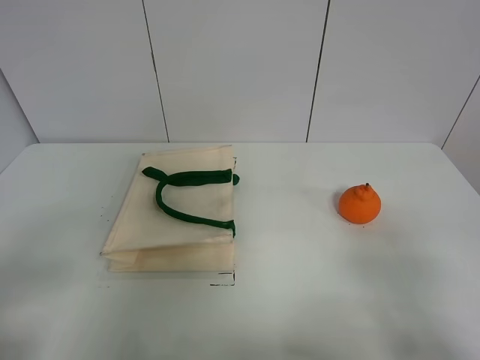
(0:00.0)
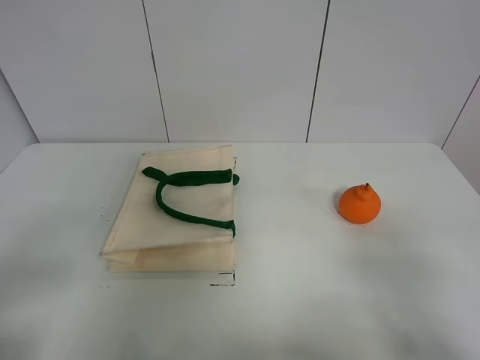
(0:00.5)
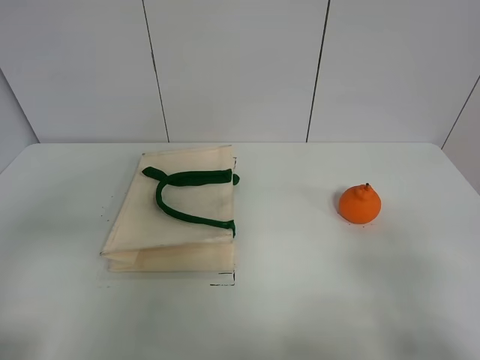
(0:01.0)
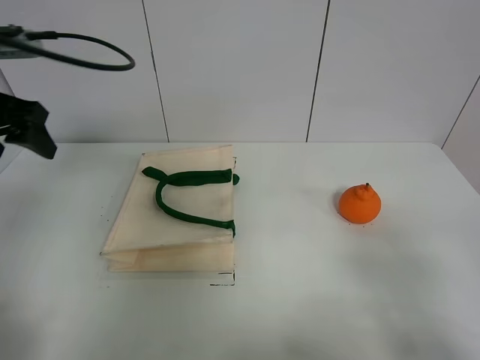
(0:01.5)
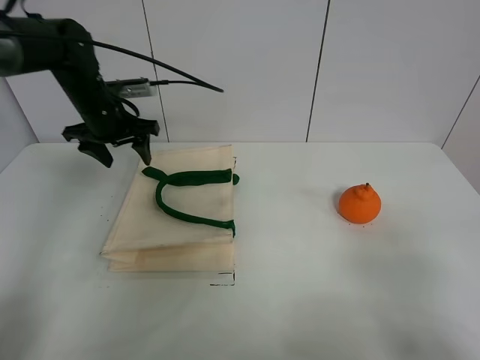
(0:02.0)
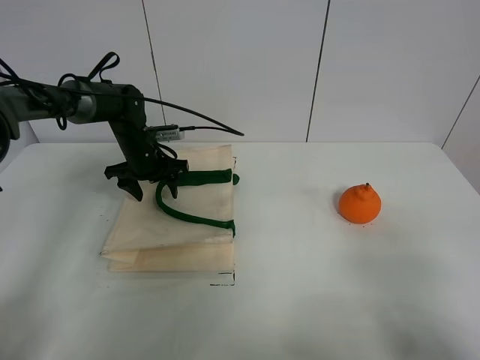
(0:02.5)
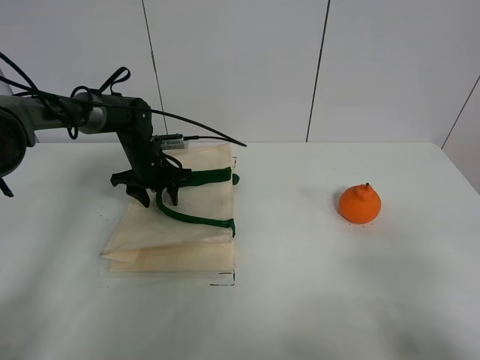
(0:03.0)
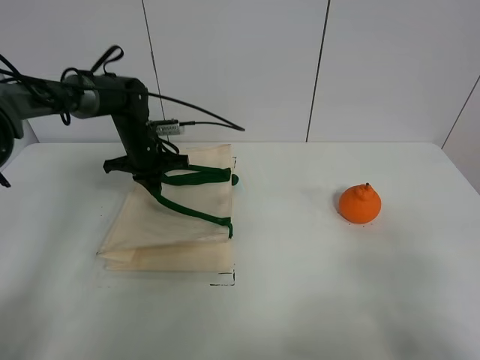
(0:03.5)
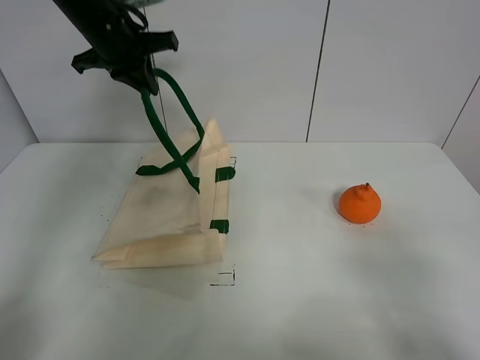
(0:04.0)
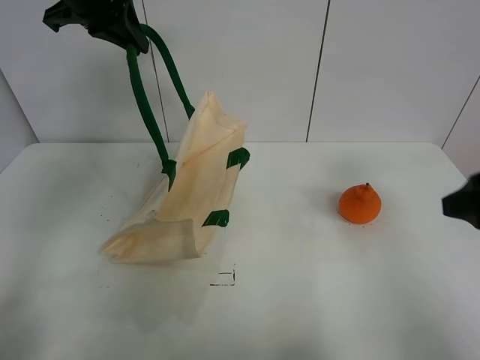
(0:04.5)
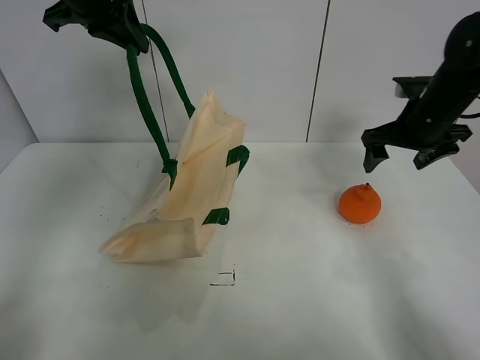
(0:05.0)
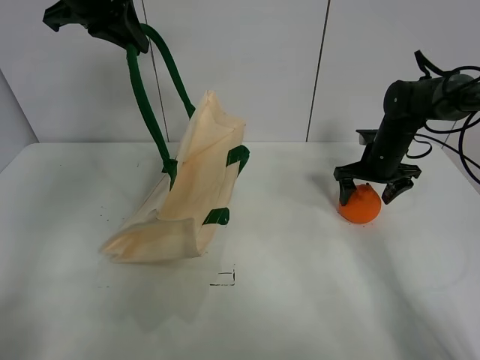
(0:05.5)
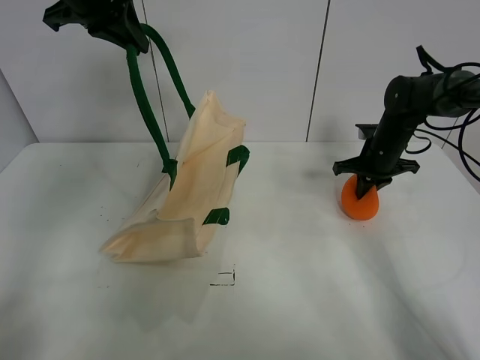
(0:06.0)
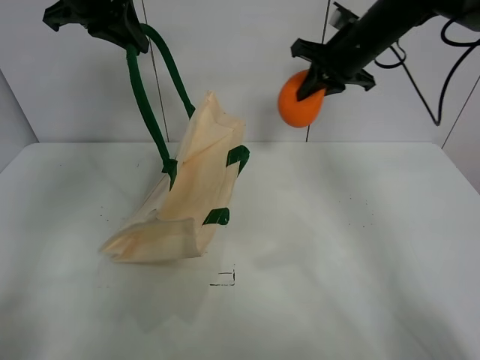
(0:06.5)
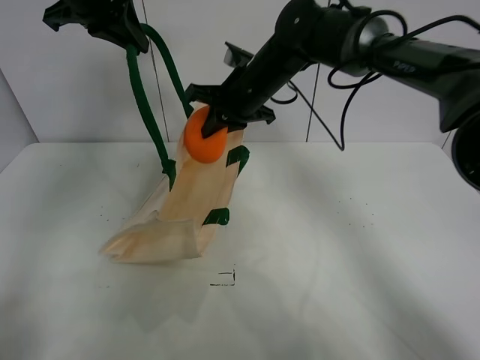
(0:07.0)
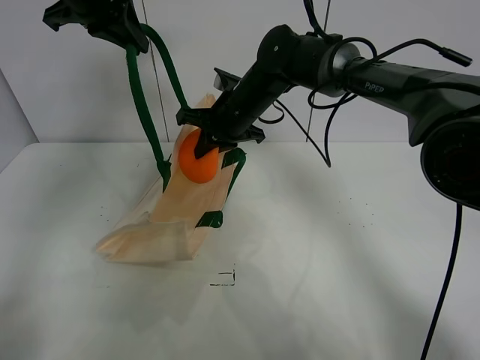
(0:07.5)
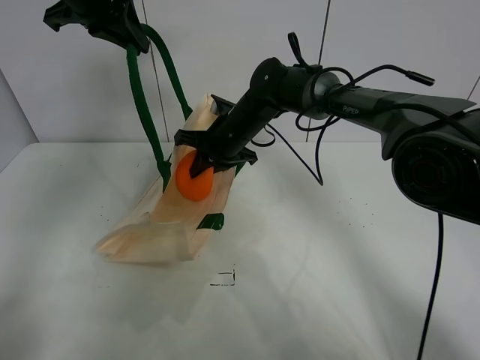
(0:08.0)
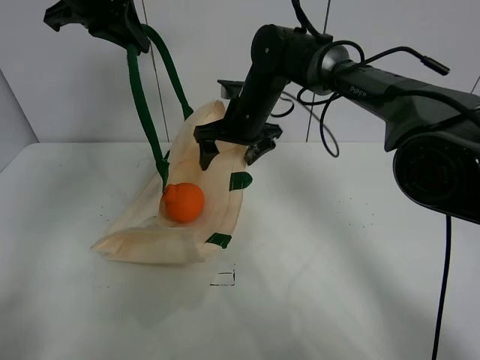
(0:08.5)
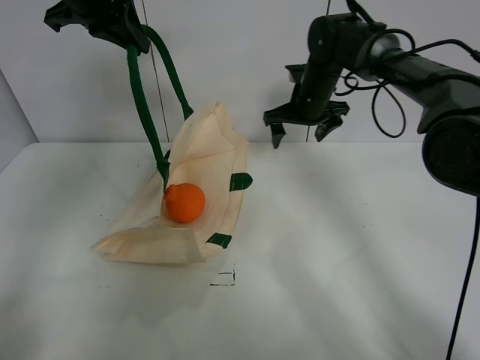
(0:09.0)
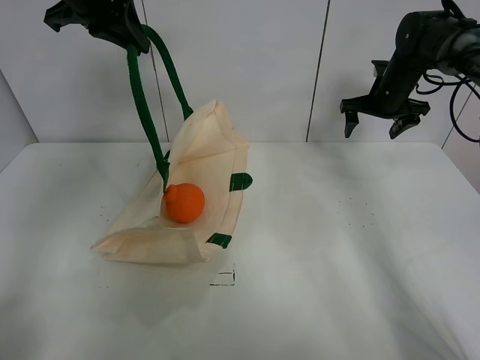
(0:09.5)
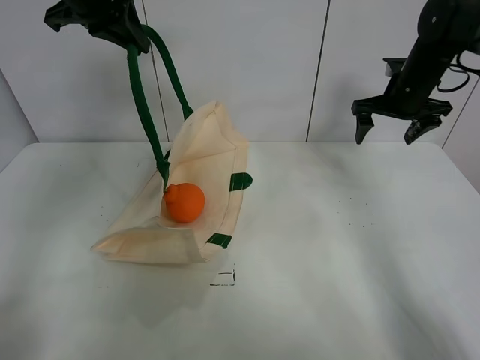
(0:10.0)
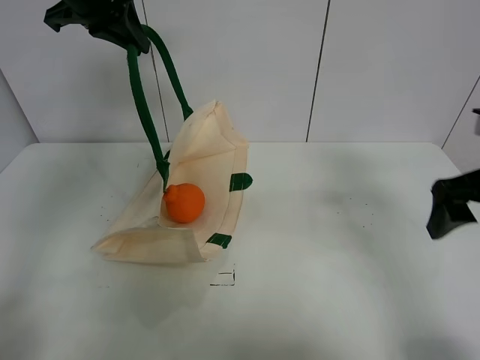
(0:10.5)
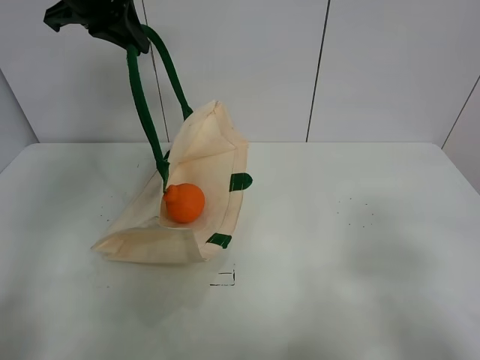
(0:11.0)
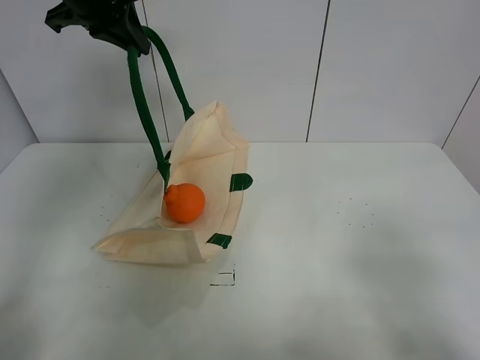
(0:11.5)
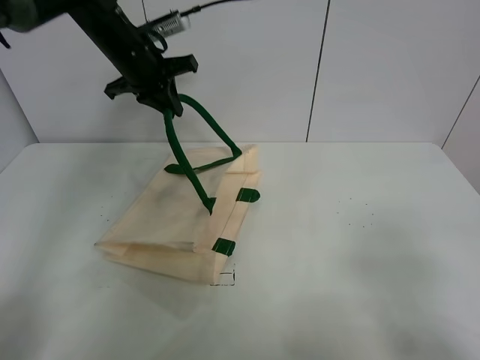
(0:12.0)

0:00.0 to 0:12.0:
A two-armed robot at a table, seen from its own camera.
Task of the whole recording: open the white linen bag and put the orange in the bag.
Step, 0:00.0 to 0:04.0: Lift the handbag with left gripper.
Step, 0:04.5 to 0:05.5: Grasp the orange with right gripper.
Step, 0:06.0 to 0:08.0: Place the orange in the handbag with right gripper.
0:00.0 to 0:02.0: The left gripper is displaced forward by roughly 40 cm.
0:02.0 to 0:04.0: The left gripper shifts approximately 15 cm upward, and closes up.
0:04.0 to 0:06.0: The right gripper goes some 40 cm forward, and closes its fingers. Meanwhile the left gripper goes approximately 5 cm upward.
0:06.0 to 0:08.0: The right gripper is displaced to the left by about 25 cm.
0:08.0 to 0:10.0: The right gripper goes some 30 cm to the right, and opens its fingers.
0:10.0 to 0:12.0: The right gripper travels backward by about 50 cm, while the left gripper goes about 15 cm downward and forward.

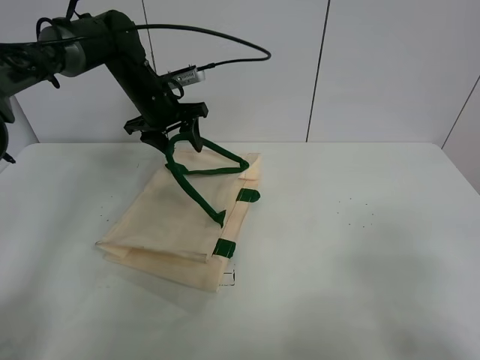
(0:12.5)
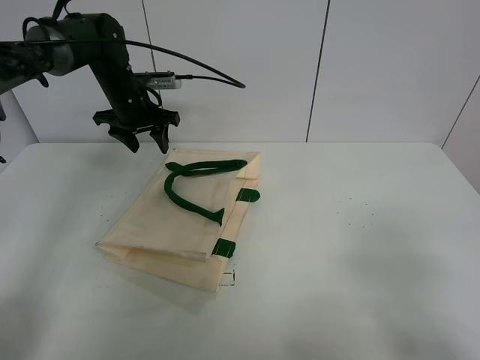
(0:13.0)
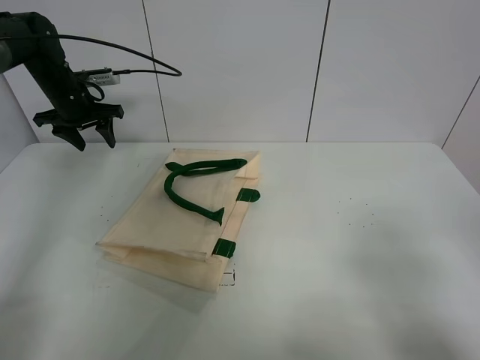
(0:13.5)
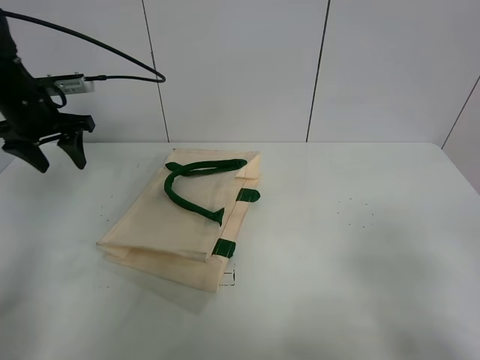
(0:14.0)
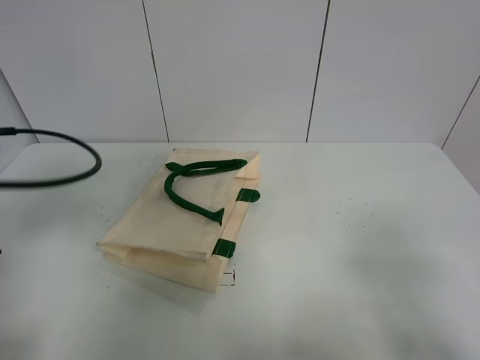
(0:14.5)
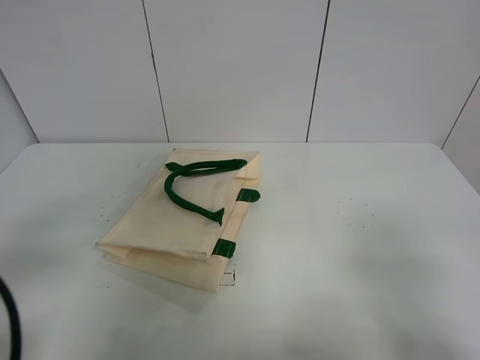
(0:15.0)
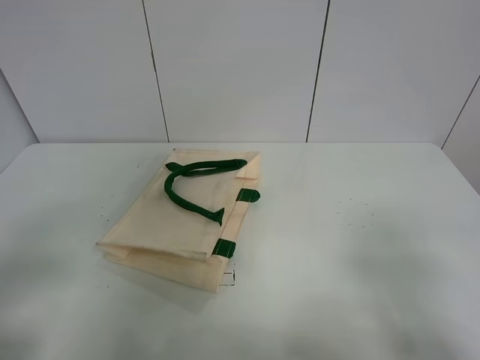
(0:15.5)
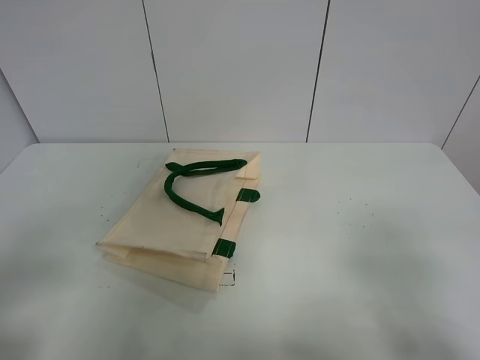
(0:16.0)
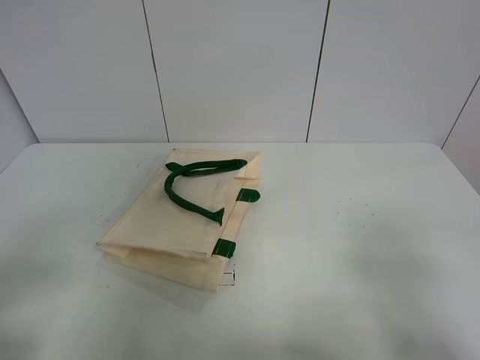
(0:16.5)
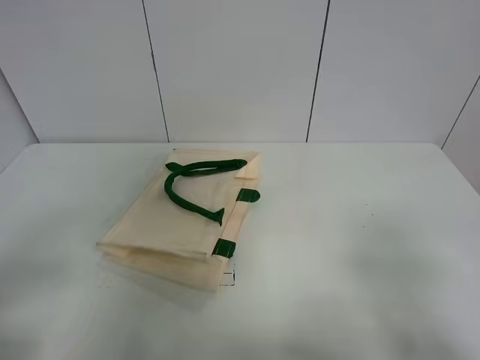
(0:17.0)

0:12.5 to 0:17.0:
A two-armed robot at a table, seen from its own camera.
Task of the whole recording: open the white linen bag and put the orange in the bag.
0:12.5 to 0:14.5: The left gripper travels backward and to the left by roughly 35 cm.
0:14.5 to 0:17.0: The left gripper is displaced backward by approximately 15 cm.

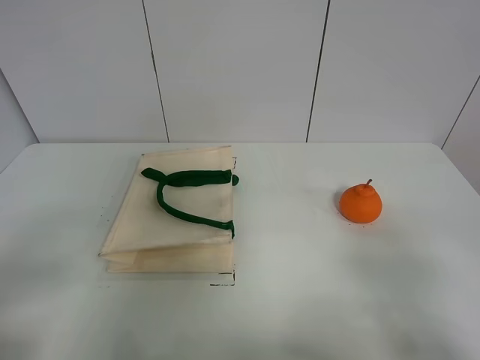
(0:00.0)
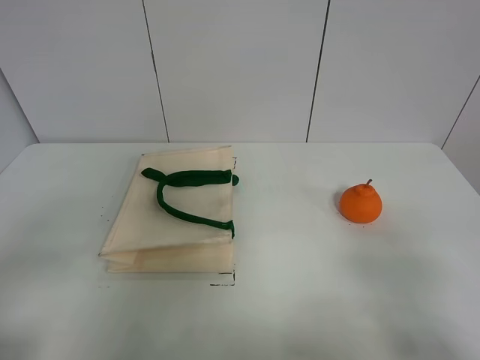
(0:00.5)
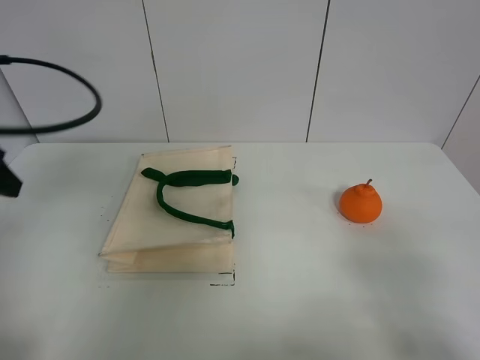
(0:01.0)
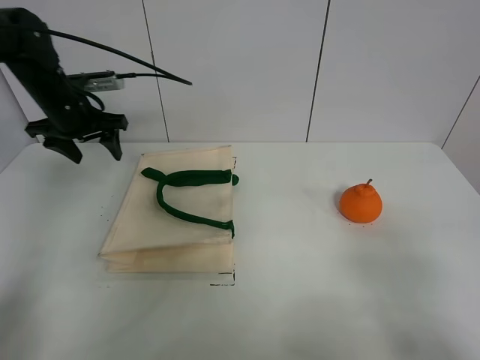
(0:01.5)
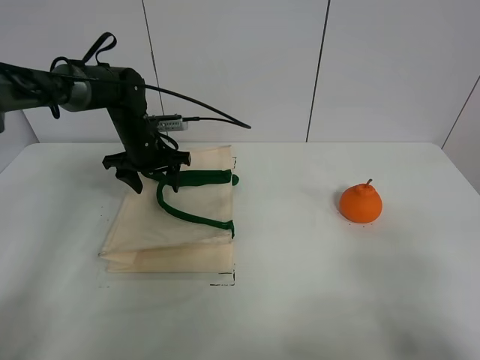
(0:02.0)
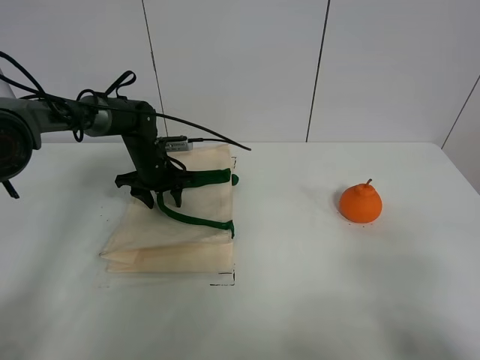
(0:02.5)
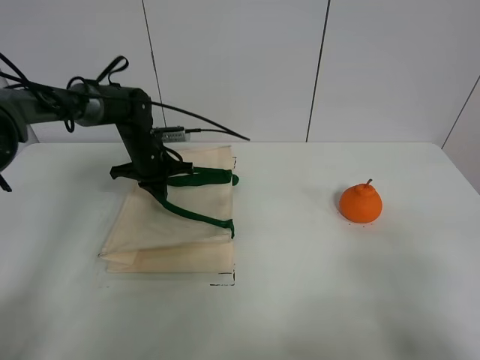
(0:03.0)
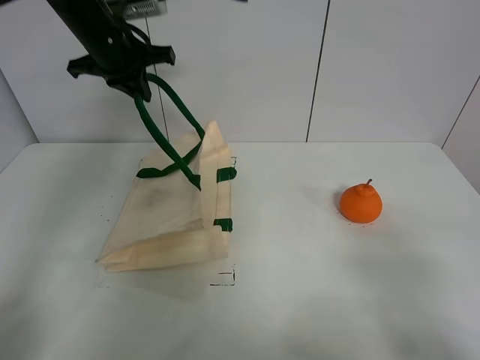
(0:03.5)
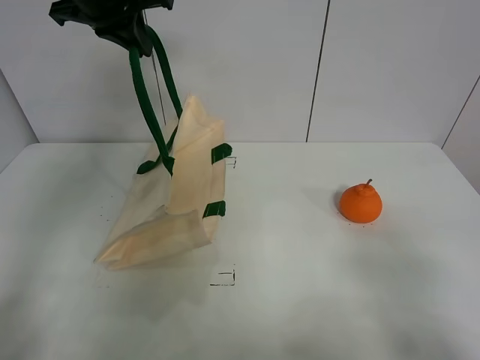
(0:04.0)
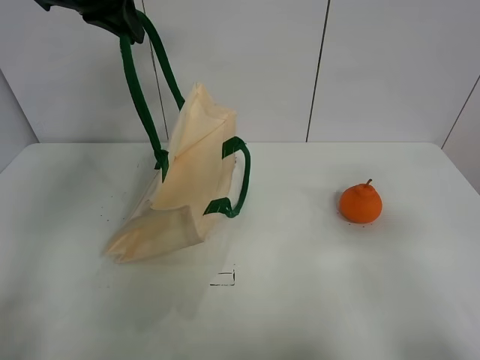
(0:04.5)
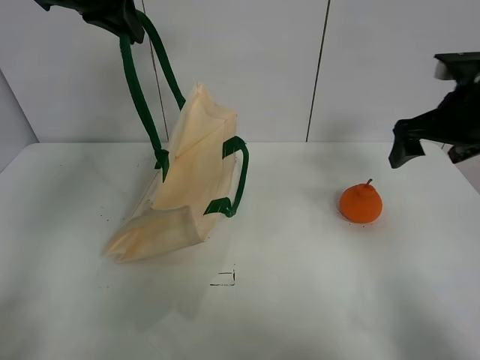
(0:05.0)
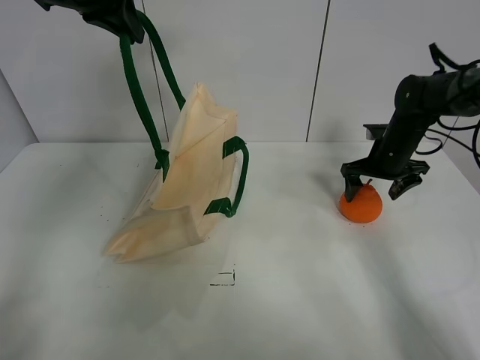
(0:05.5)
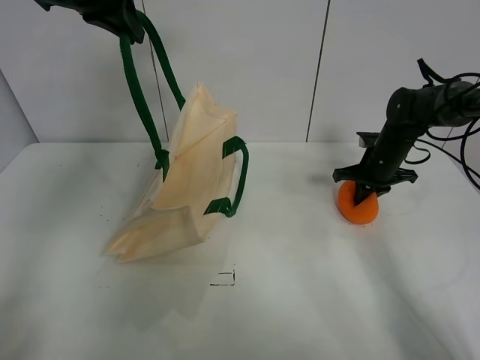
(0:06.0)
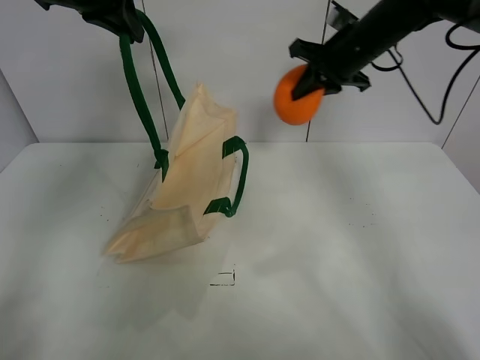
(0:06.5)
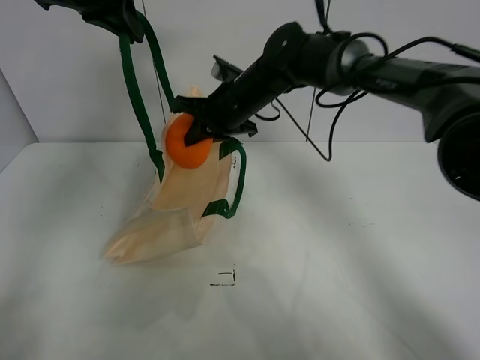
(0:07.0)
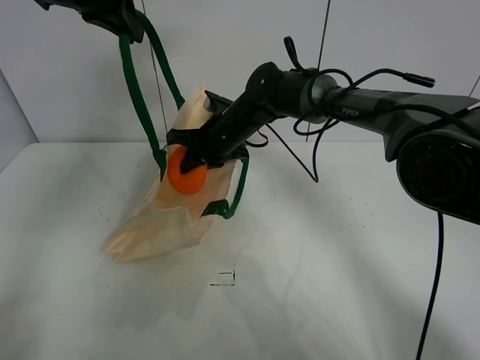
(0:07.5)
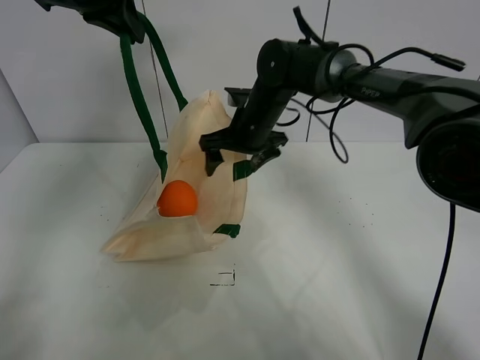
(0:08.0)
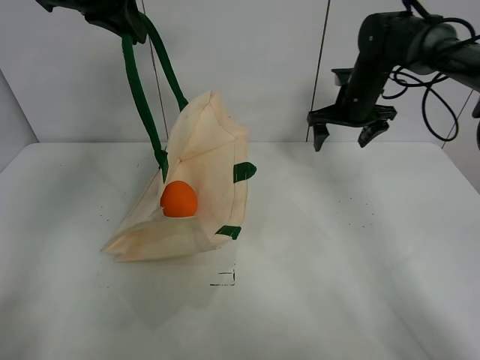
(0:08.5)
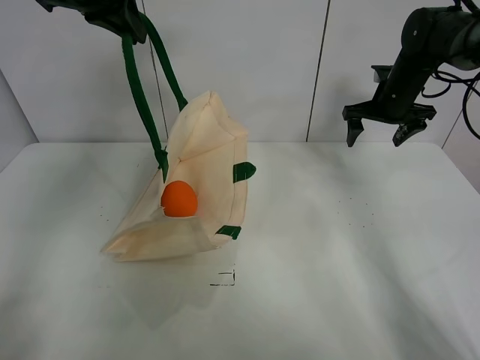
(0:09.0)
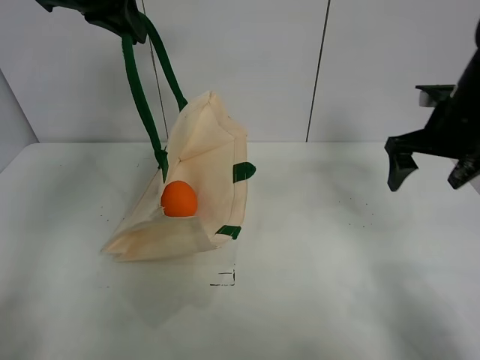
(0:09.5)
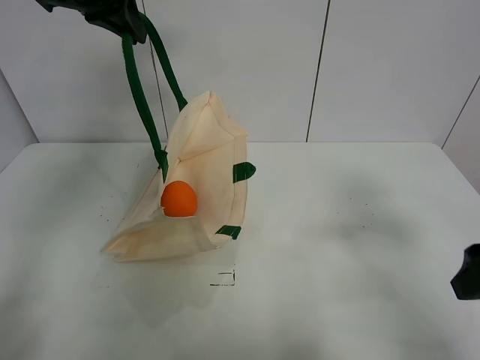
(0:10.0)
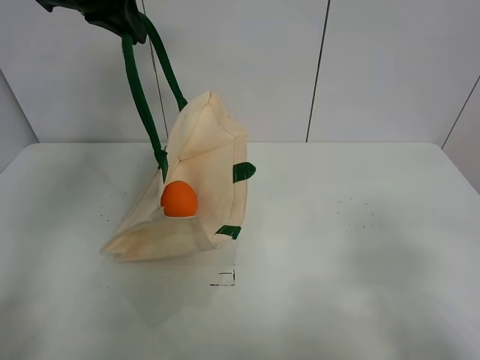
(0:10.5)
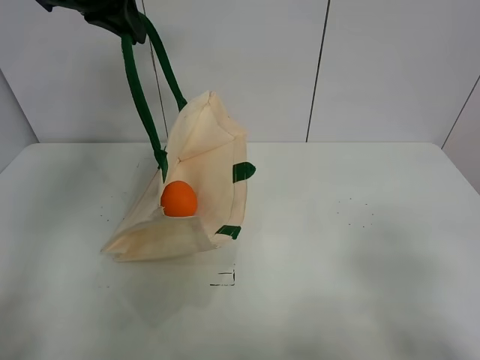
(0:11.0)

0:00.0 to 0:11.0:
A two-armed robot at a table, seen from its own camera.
Task of the whole recording: open the white linen bag and put the orange in the bag.
Step, 0:00.0 to 0:04.5: Lift the handbag with left gripper.
Step, 0:05.0 to 0:05.5: Grasp the orange with right gripper.
Step, 0:06.0 to 0:07.5: Place the orange in the handbag with right gripper.
0:00.0 to 0:02.0: The left gripper heads forward, covering roughly 50 cm.
0:02.0 to 0:03.5: The left gripper moves upward, some 20 cm, and closes.
0:03.5 to 0:05.5: The left gripper shifts about 10 cm upward; the right gripper heads forward, covering about 40 cm.
0:05.5 to 0:07.5: The right gripper travels to the left by about 30 cm, and closes up.
0:07.5 to 0:09.0: The right gripper heads to the right, covering about 30 cm, and opens up.
0:09.0 to 0:11.0: The right gripper travels backward by some 50 cm.
